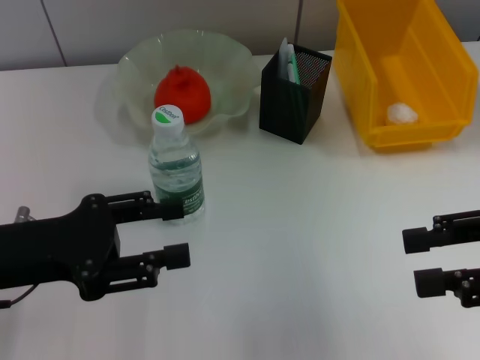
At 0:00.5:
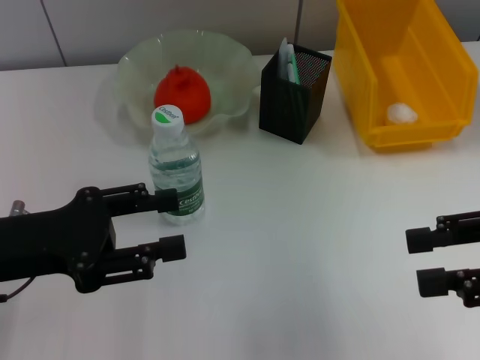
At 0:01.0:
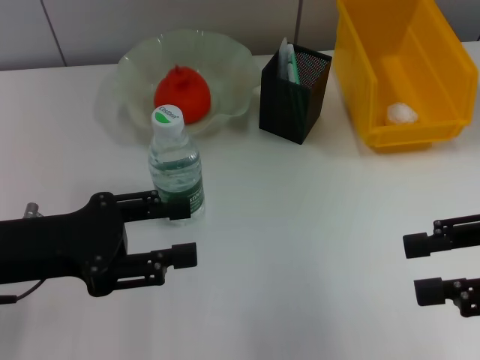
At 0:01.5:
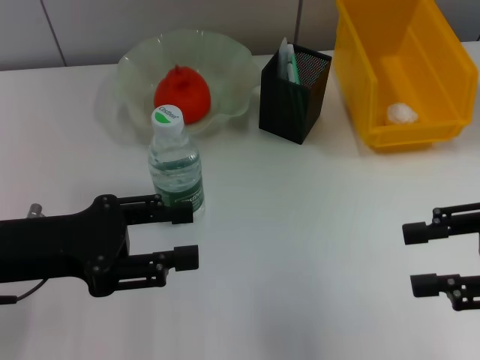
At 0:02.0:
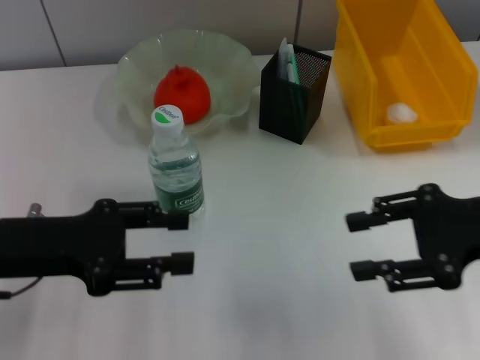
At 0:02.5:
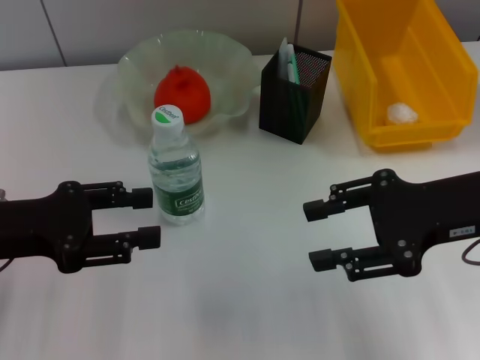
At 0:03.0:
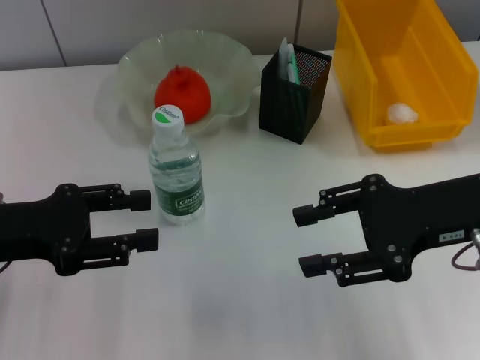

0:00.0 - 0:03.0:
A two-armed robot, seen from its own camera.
0:00.0 - 0:01.5: The grippers stay close to where they were, moving slightly.
0:01.5 - 0:03.0: The right gripper is displaced to the left and forward by about 10 cm.

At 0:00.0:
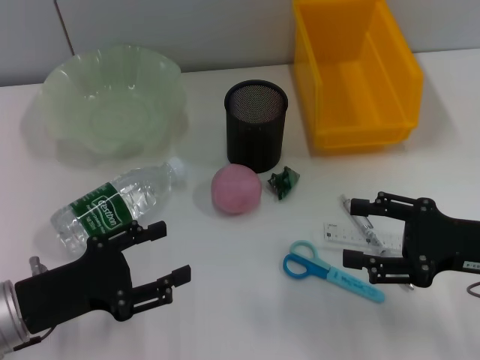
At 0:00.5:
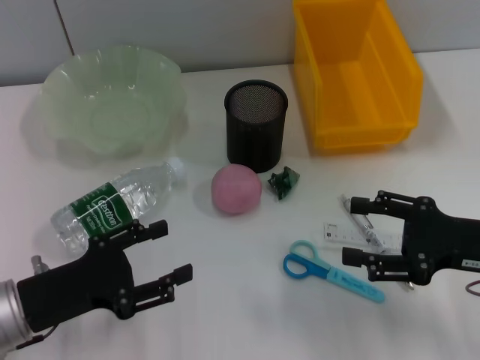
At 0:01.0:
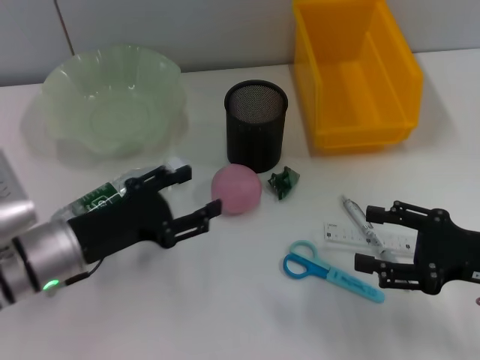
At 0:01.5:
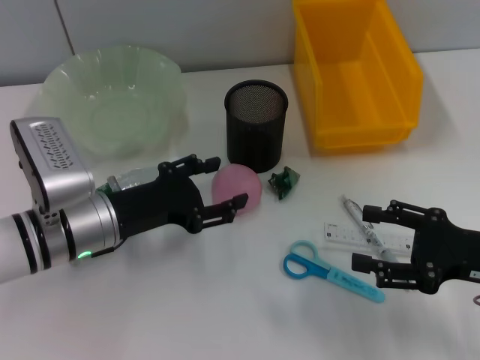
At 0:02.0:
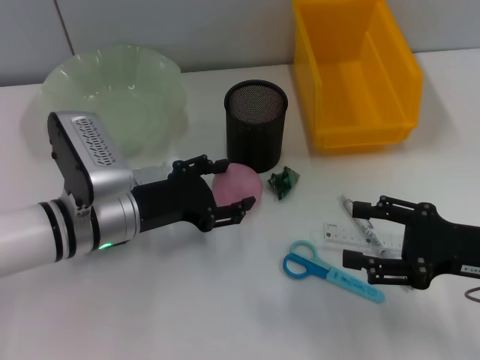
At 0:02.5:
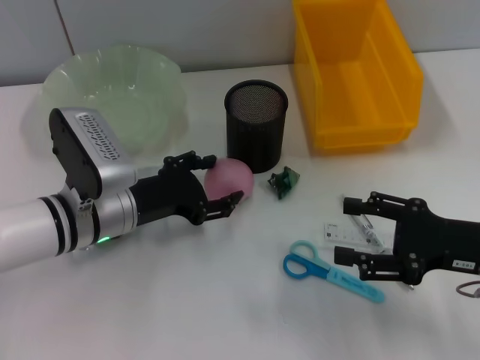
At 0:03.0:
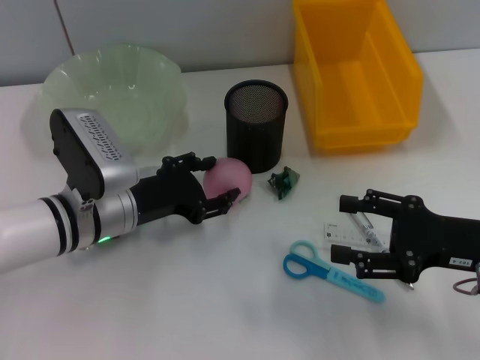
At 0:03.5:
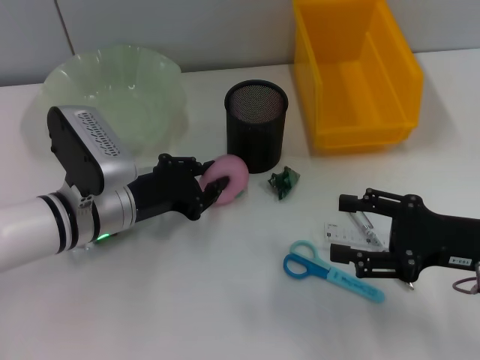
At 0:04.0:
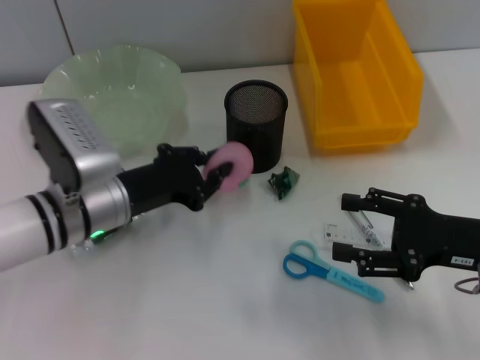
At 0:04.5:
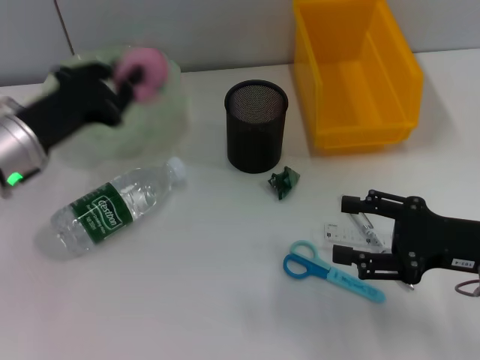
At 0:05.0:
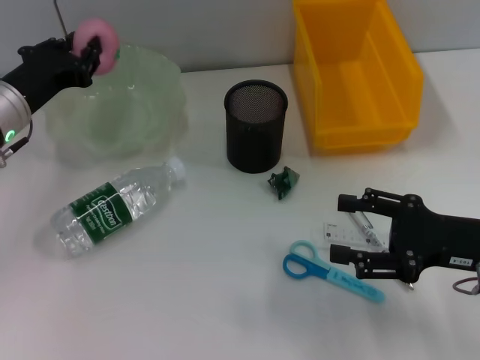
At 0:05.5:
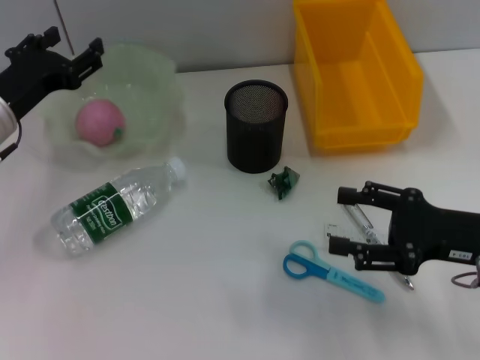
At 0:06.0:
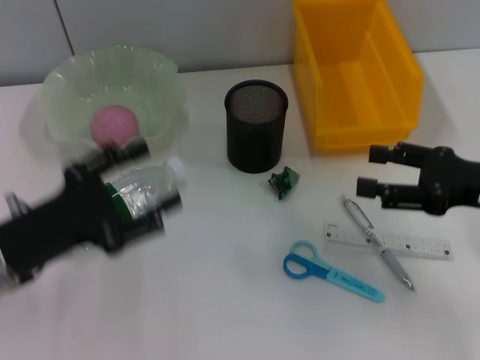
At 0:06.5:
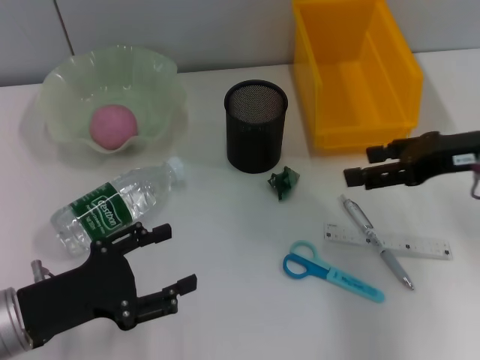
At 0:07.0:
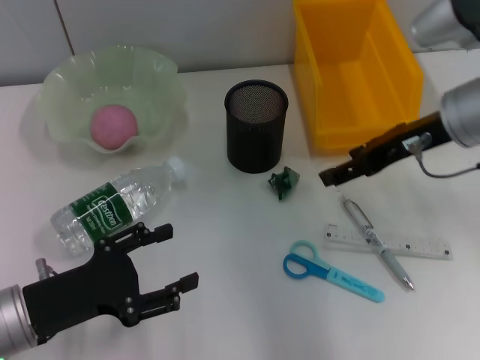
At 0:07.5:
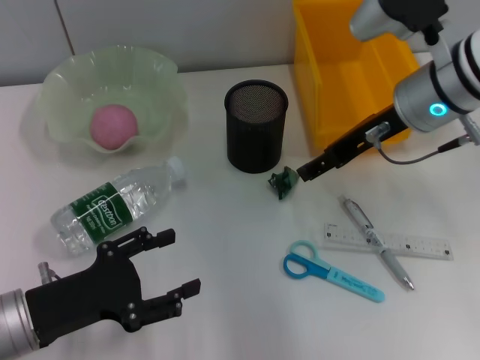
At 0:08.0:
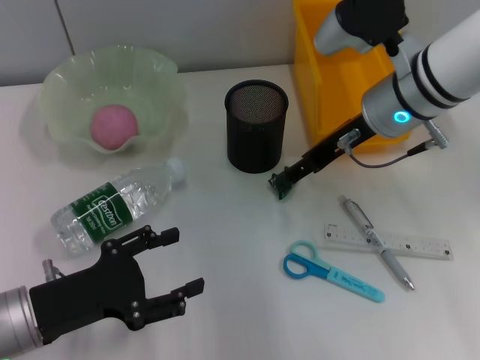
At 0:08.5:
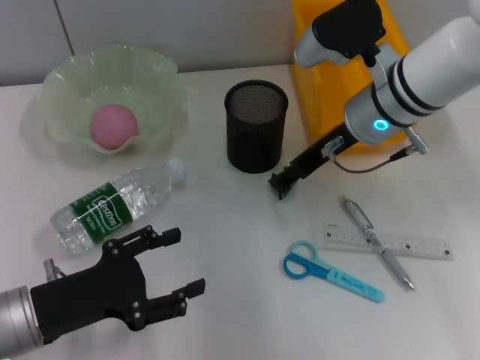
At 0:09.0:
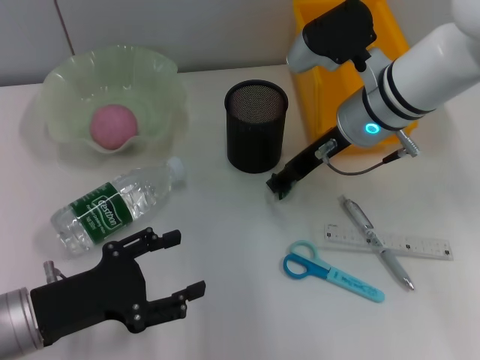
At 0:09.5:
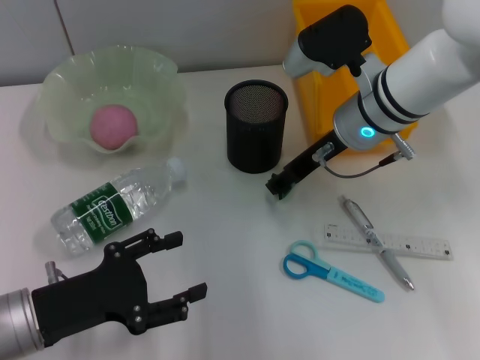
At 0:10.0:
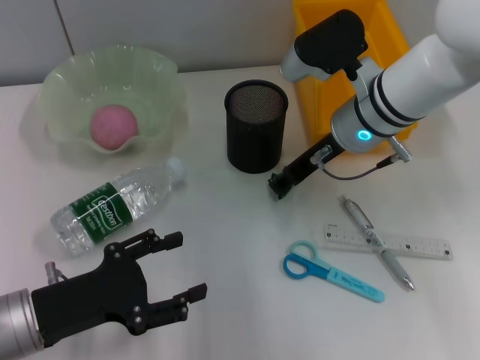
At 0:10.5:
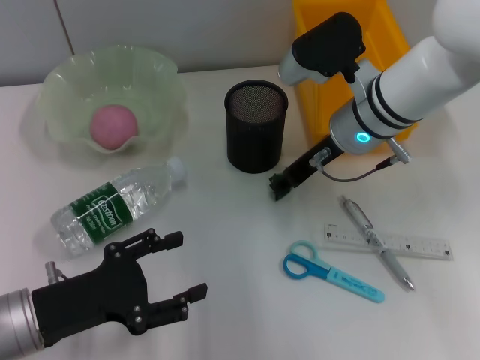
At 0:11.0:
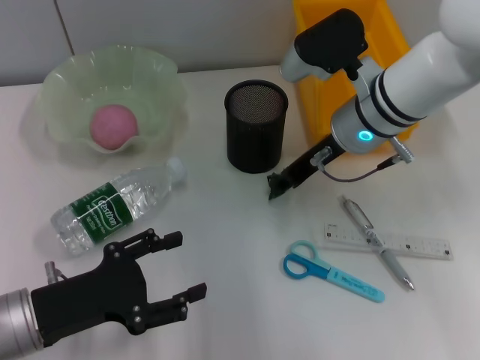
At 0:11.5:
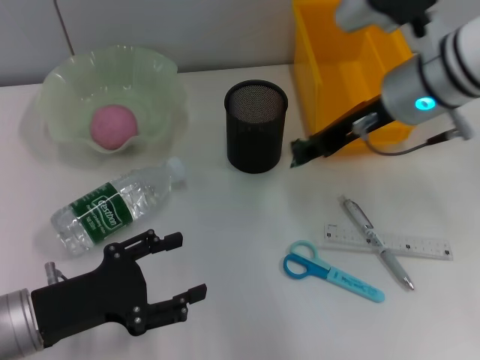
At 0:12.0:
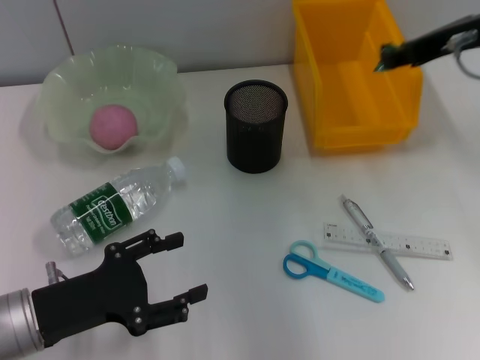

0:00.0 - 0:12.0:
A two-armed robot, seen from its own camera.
Step, 0:00.0 - 0:03.5: Grab the orange with the left hand.
Step, 0:04.0 - 0:05.0: Place the orange into the fruit bowl with the left hand.
Step, 0:06.0 - 0:10.5: Grab the paper ball with the right hand.
0:00.0 - 0:02.0: The left gripper is displaced forward and to the right by roughly 15 cm.
0:02.0 - 0:04.0: The left gripper closes up.
0:04.0 - 0:06.0: The left gripper heads to the left and backward, covering some 10 cm, and opens its fingers; the right gripper moves about 5 cm.
0:06.0 - 0:08.0: The right gripper goes some 20 cm to the left and forward. The left gripper changes place by roughly 5 cm.
0:08.0 - 0:10.0: The grippers make only small movements.
0:10.0 - 0:12.0: The right gripper travels upward and to the right by approximately 15 cm, and closes its fingers.

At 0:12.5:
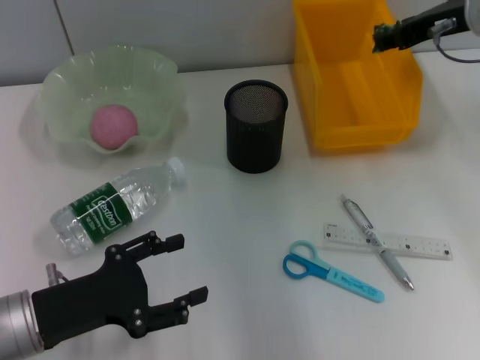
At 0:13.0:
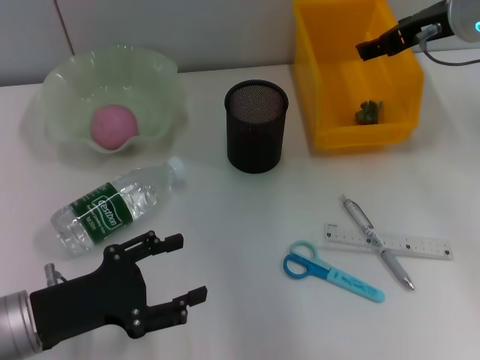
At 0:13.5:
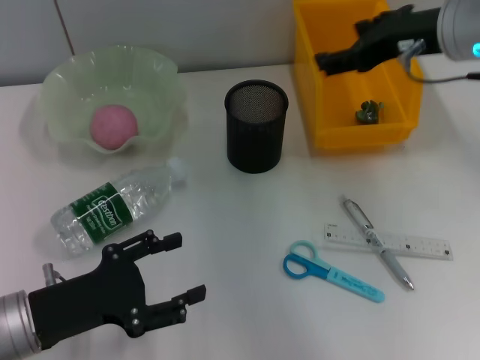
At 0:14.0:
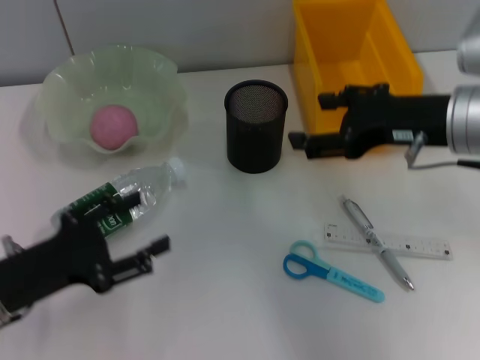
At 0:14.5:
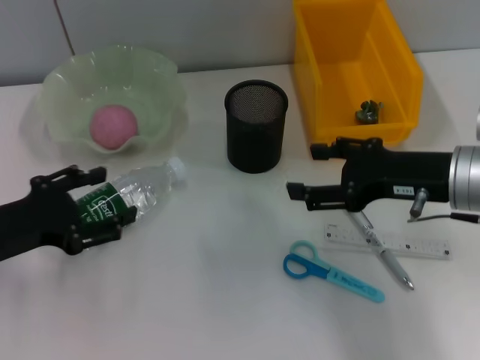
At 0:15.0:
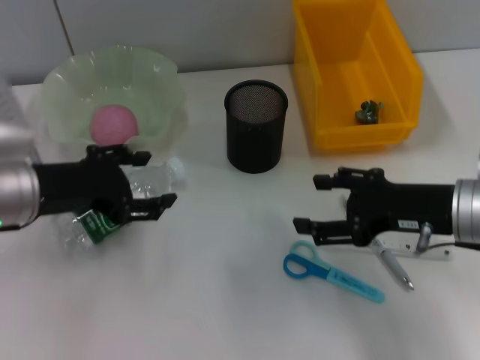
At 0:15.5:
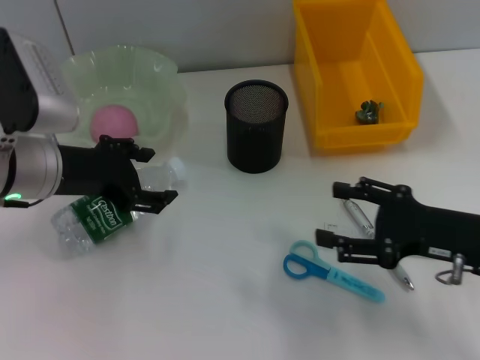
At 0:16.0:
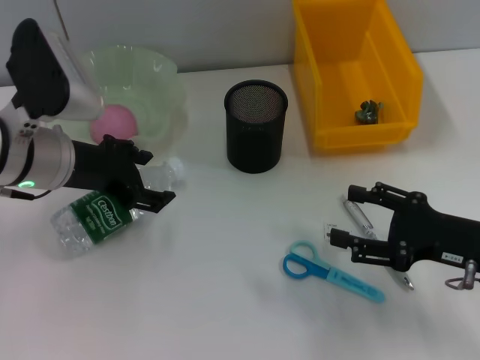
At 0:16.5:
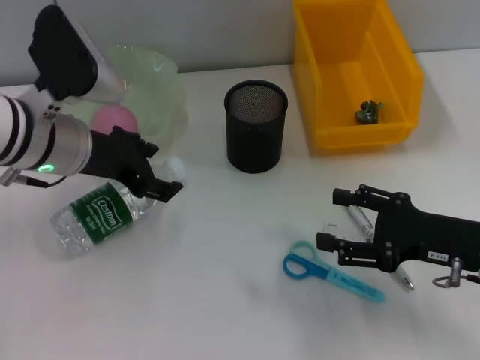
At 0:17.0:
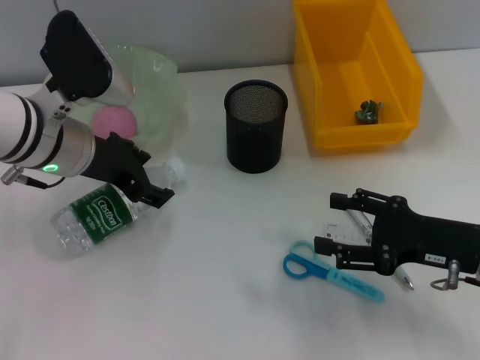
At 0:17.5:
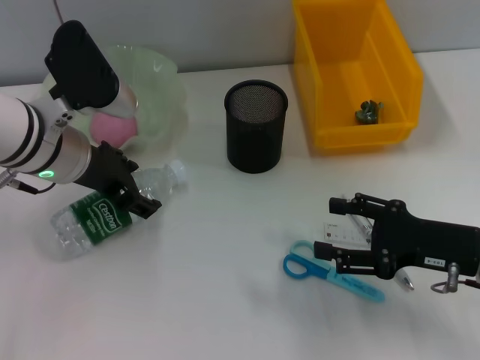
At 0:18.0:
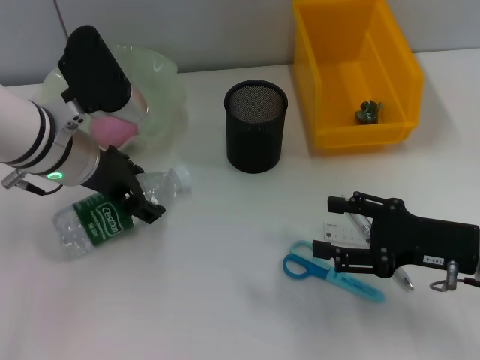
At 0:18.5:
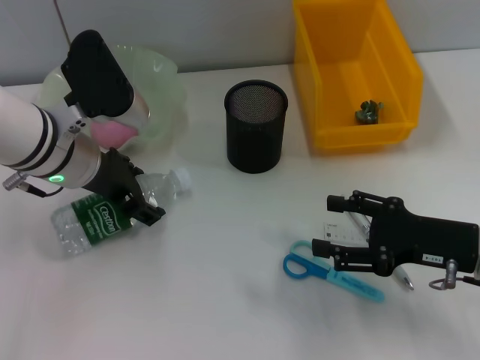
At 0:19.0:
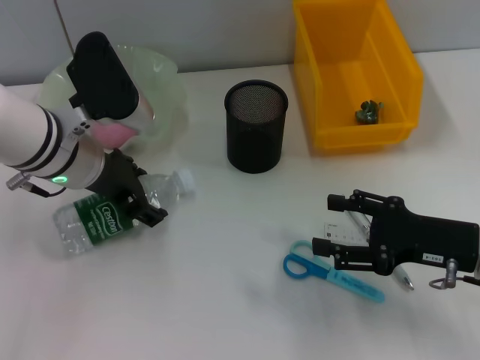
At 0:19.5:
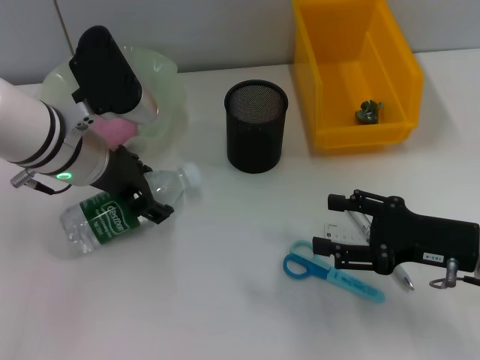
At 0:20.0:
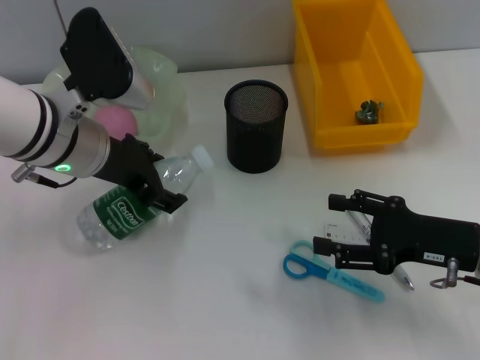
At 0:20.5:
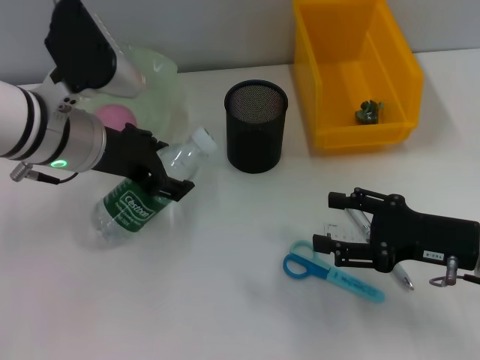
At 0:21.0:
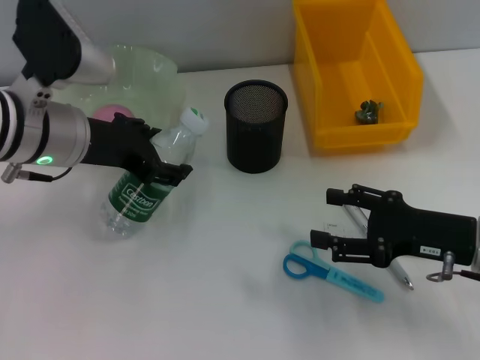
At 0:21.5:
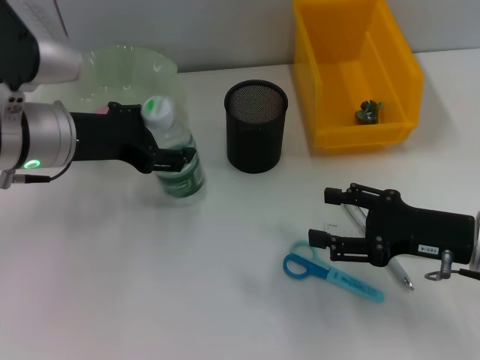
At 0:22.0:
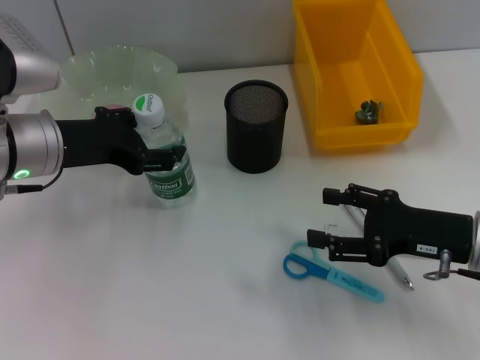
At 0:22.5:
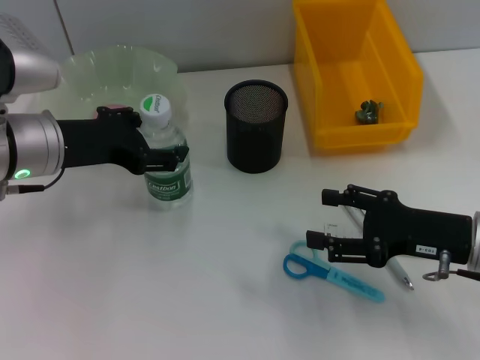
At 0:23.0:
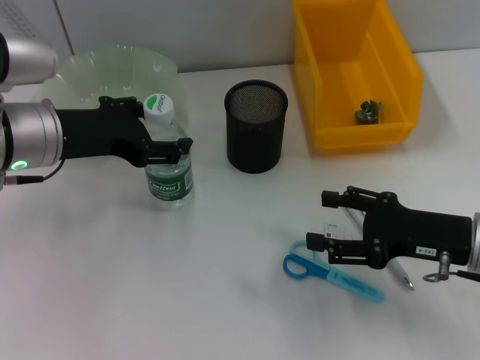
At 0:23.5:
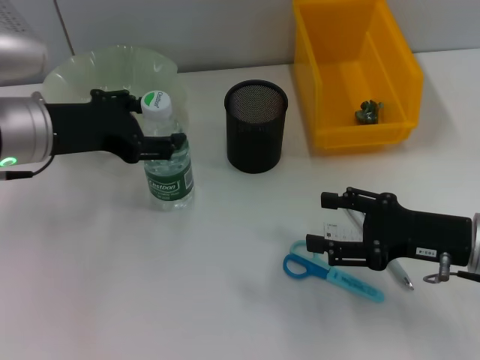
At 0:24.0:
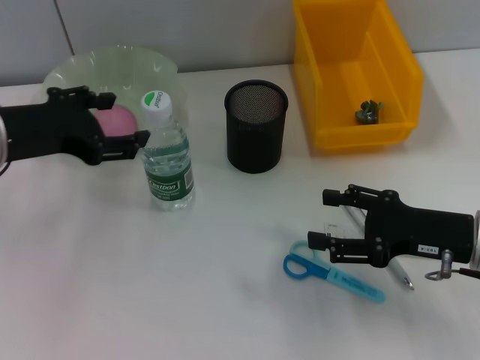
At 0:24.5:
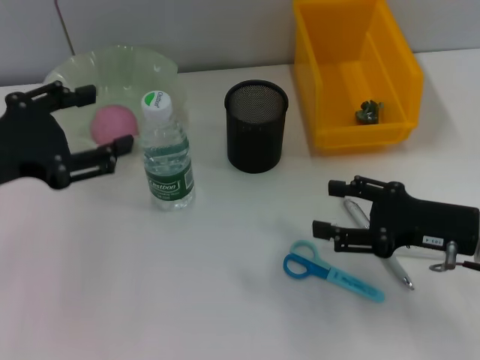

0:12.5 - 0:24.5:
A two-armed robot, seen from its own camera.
Step, 0:13.0 - 0:18.0: Grab the water bottle with the left hand.
Step, 0:18.5 - 0:24.0: Place the water bottle on the table with the left hand.
0:12.5 - 0:14.5: The right gripper heads backward and downward, covering about 15 cm, and opens up, while the left gripper shifts roughly 5 cm upward.
0:14.5 - 0:16.5: The right gripper is displaced downward by about 5 cm, while the left gripper is displaced to the right, forward and upward by some 15 cm.
0:16.5 - 0:20.5: There are only small adjustments of the grippers.
0:22.5 - 0:24.5: The left gripper moves backward and to the left, roughly 10 cm.
